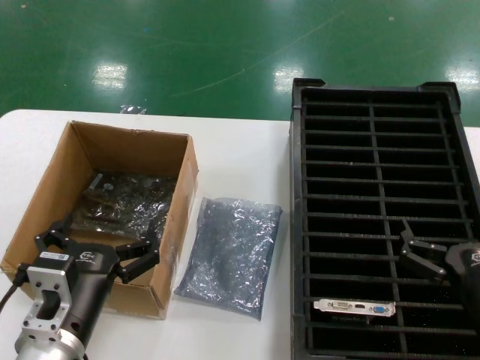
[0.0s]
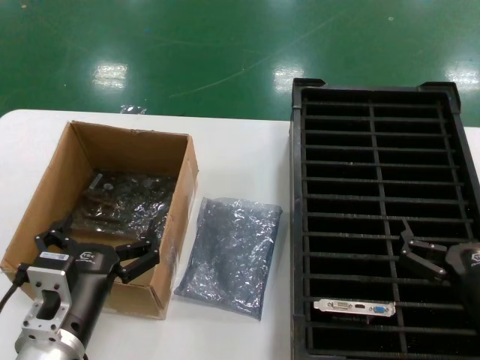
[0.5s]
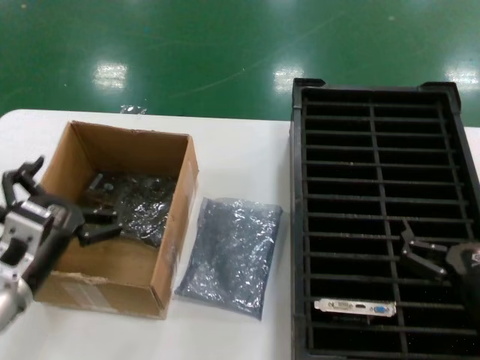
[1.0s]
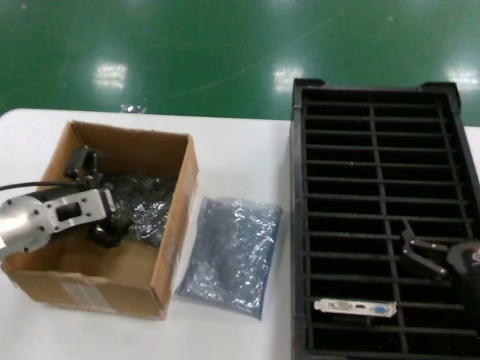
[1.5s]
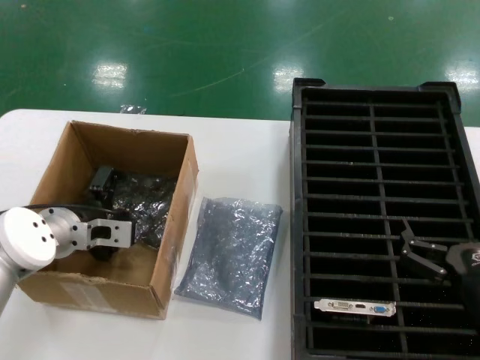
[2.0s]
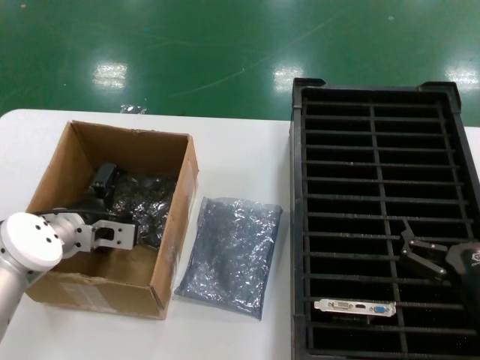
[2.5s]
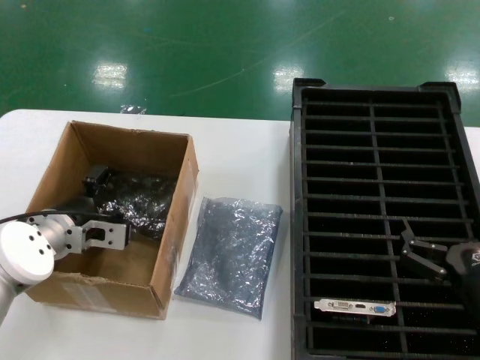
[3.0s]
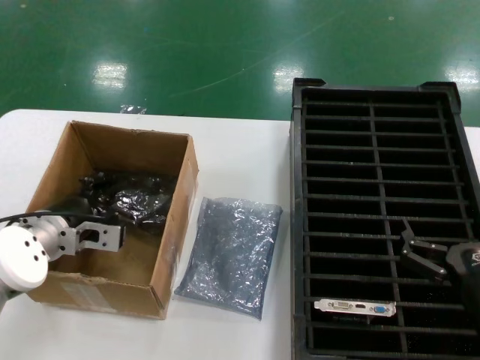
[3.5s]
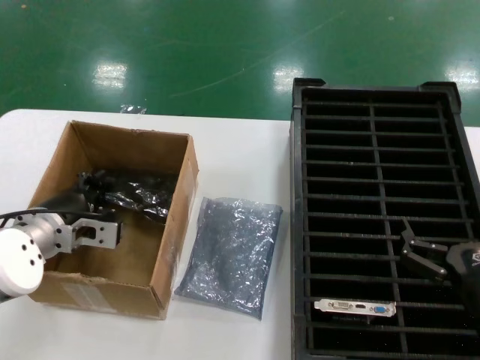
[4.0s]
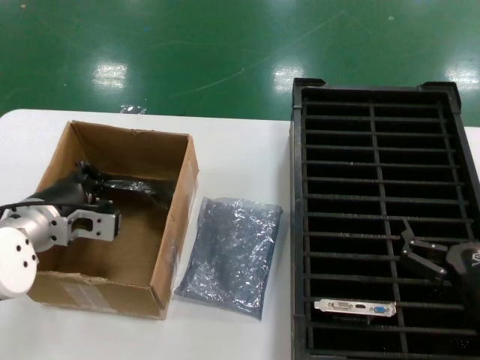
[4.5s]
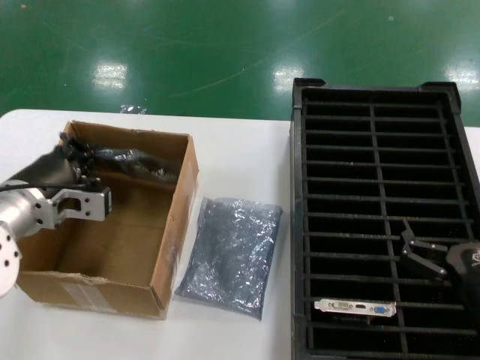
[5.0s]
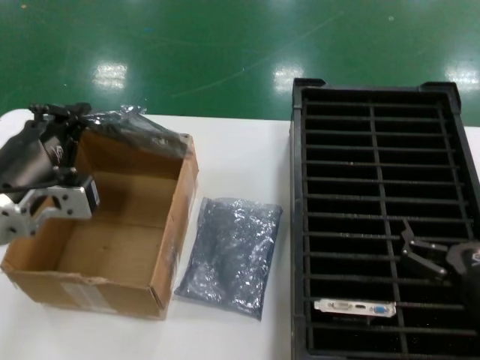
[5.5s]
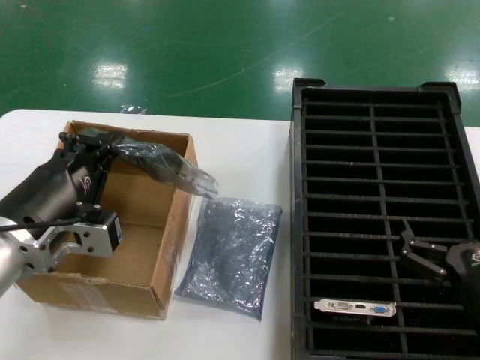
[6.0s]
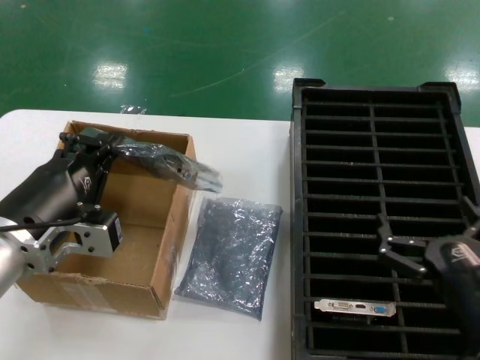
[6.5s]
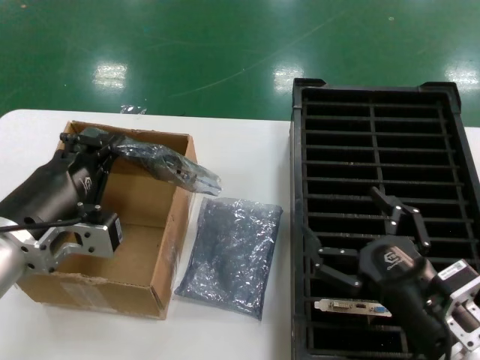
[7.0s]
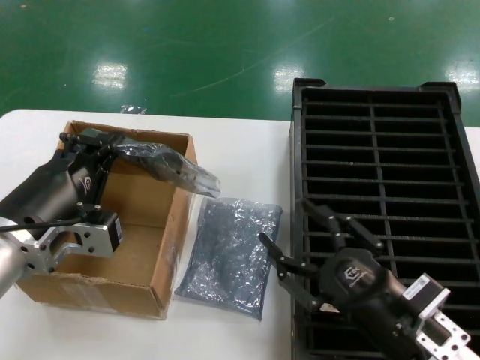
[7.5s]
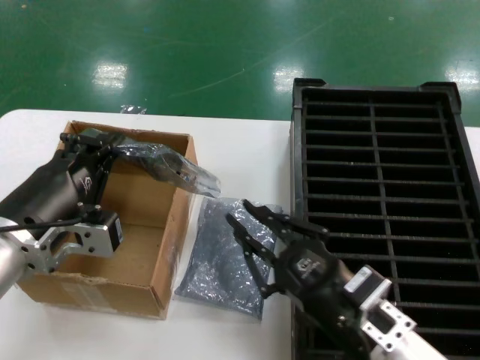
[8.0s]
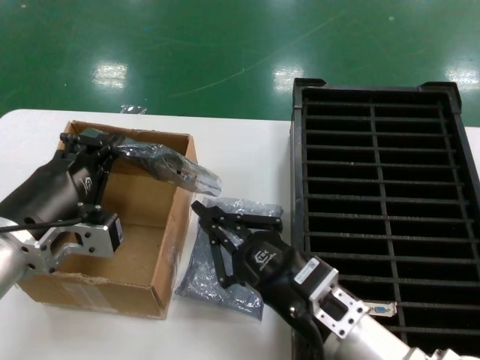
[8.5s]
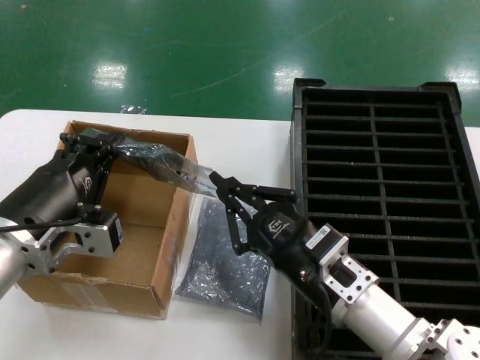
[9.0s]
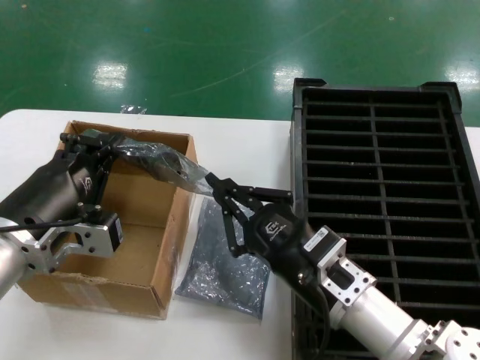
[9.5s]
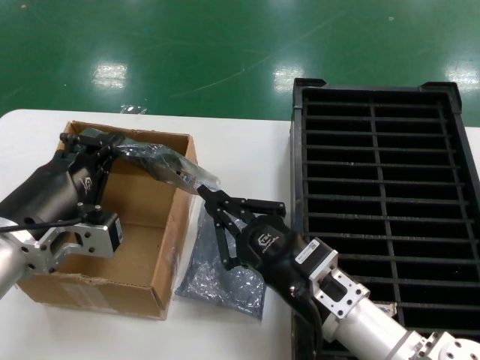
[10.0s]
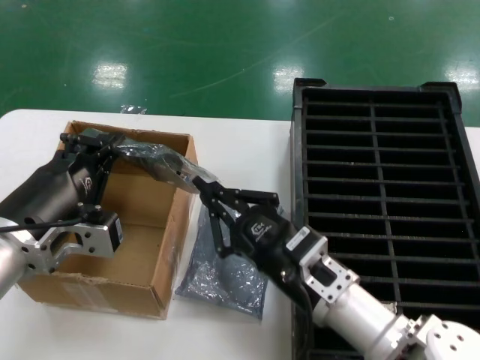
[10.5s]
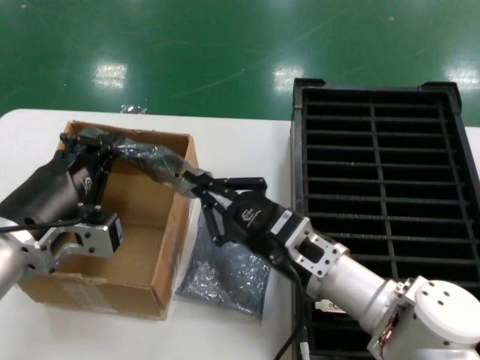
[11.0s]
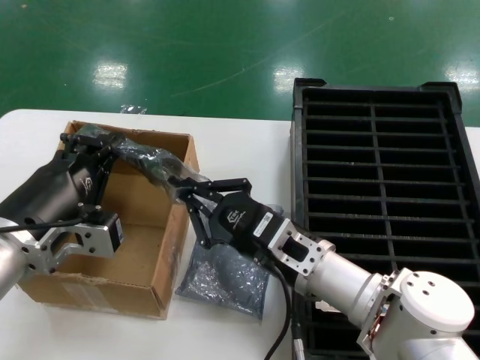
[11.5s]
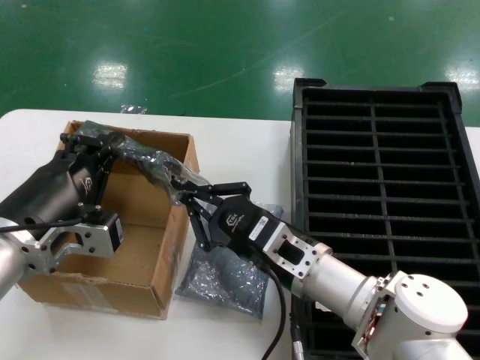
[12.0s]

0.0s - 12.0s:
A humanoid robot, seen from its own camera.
Task of the whole recording: take out graphics card from box remove packaging put into black container.
Step, 0.0s - 4.0s: Grasp the bag.
Step, 4.5s - 5.5s: Lift the bag.
0.0s - 2.0s: The left hand is displaced forward and to the left by approximately 20 cm.
2.0s - 4.0s: The hands stay close to where they were, moving slightly.
4.0s - 6.0s: The left hand moves backward and upward, about 15 cm.
6.0s - 8.0s: The right hand shifts about 10 cm to the left.
8.0s - 10.0s: The right hand moves some 5 cm.
10.0s - 12.0s: The right hand is displaced forward by about 5 cm.

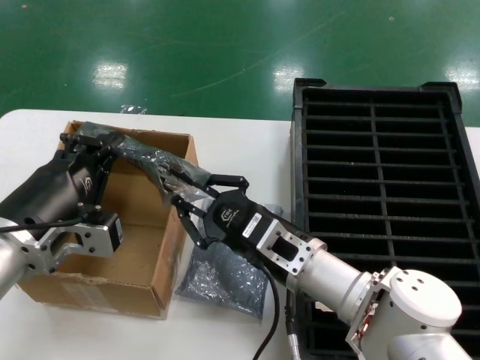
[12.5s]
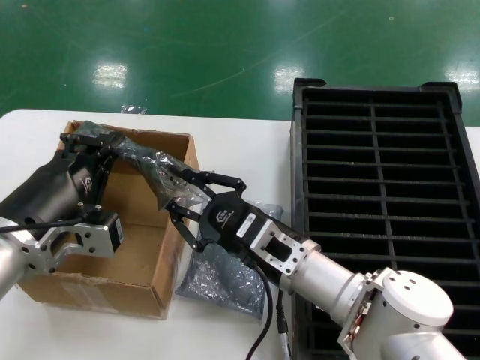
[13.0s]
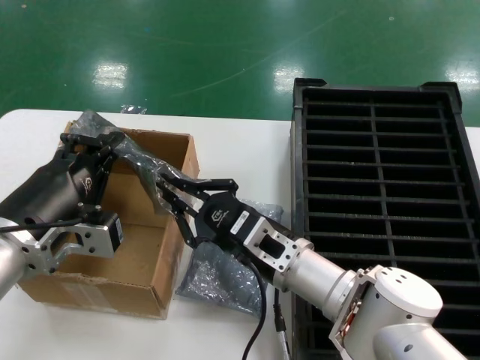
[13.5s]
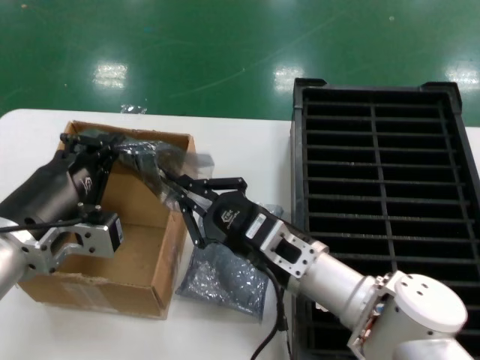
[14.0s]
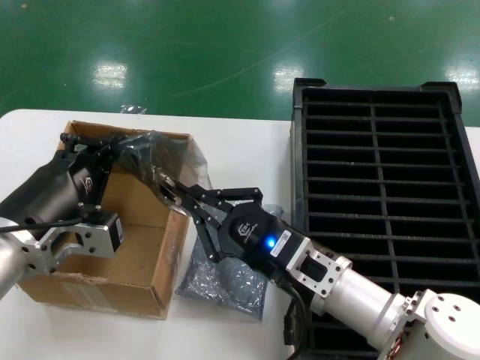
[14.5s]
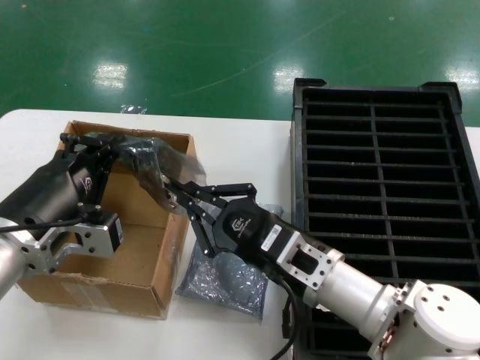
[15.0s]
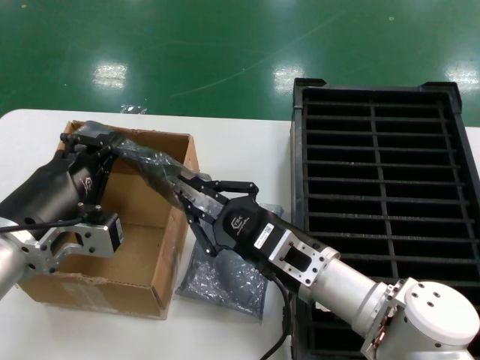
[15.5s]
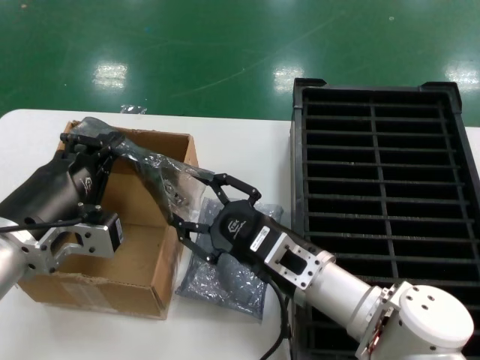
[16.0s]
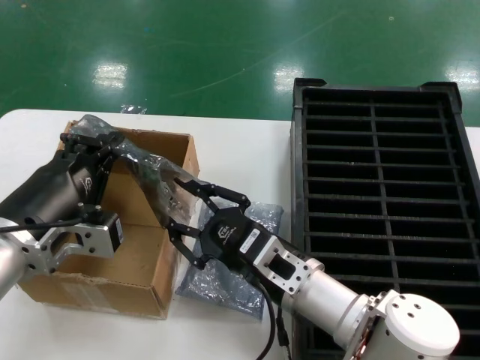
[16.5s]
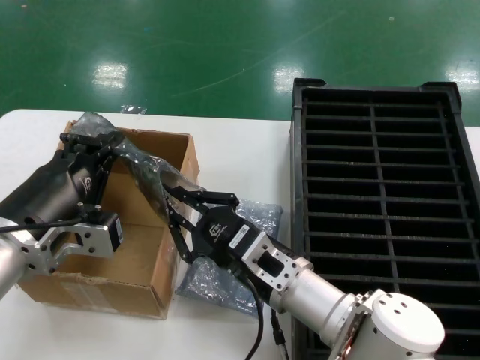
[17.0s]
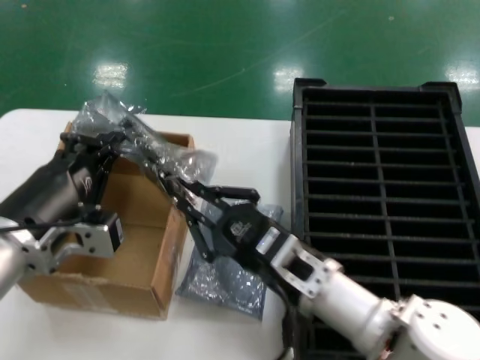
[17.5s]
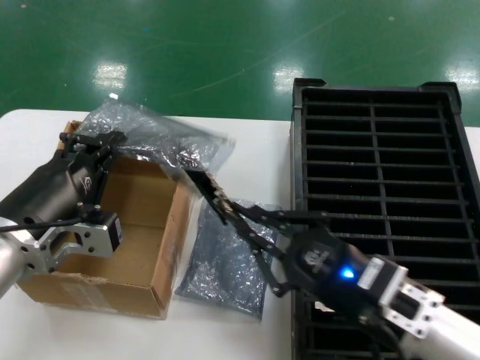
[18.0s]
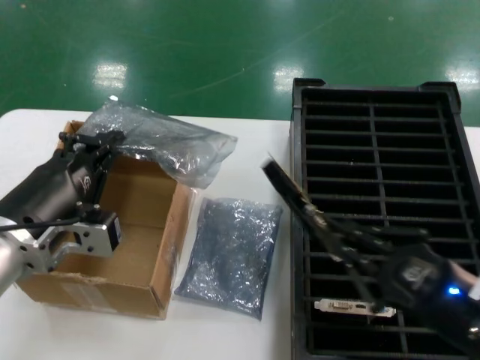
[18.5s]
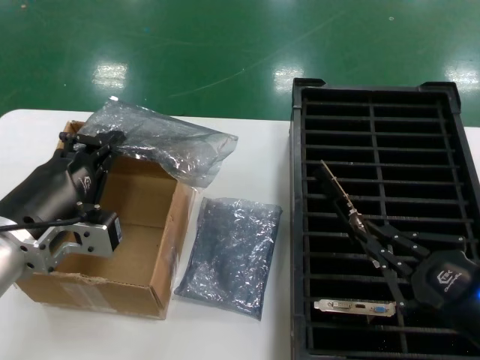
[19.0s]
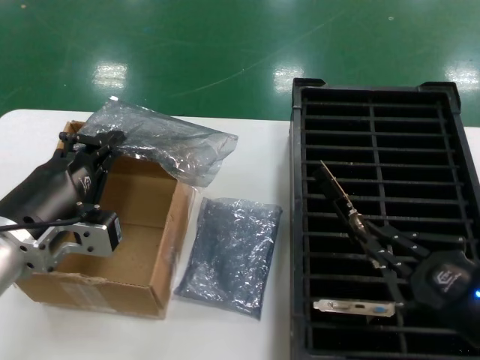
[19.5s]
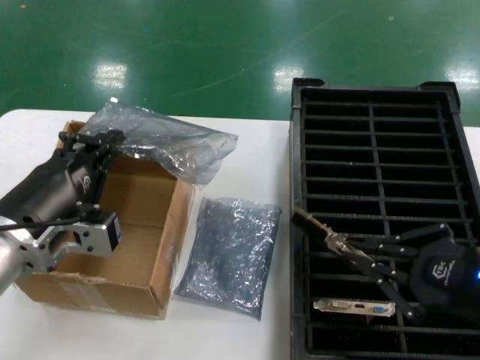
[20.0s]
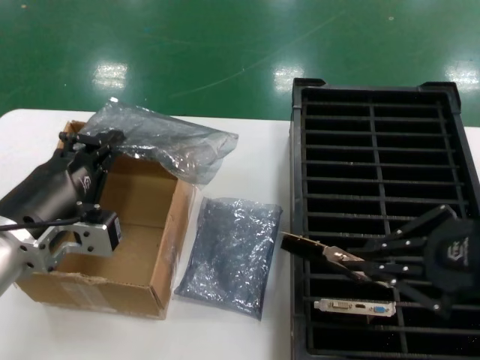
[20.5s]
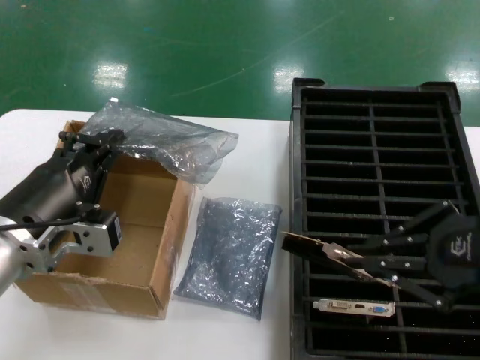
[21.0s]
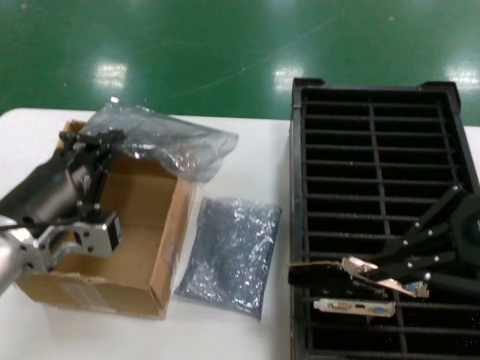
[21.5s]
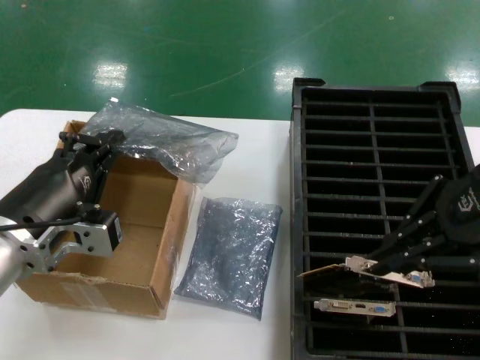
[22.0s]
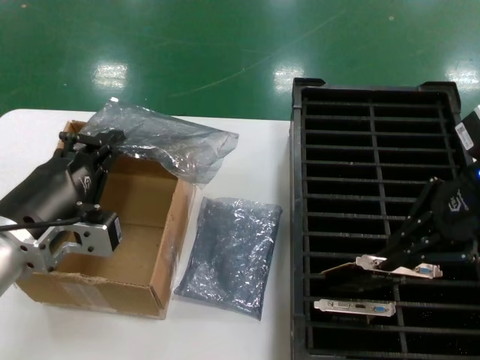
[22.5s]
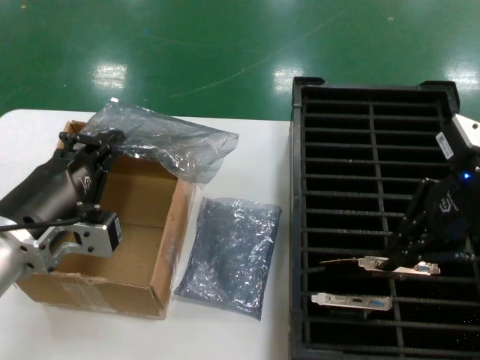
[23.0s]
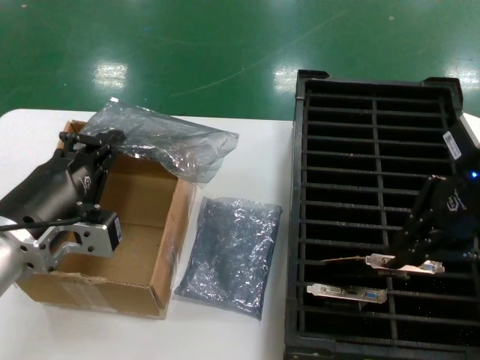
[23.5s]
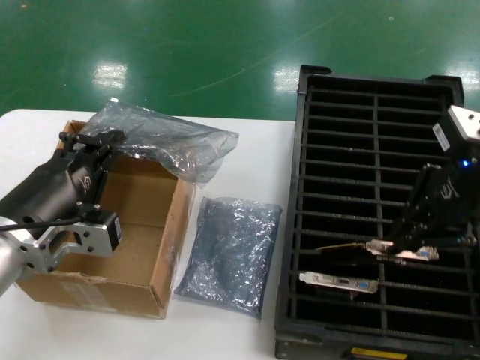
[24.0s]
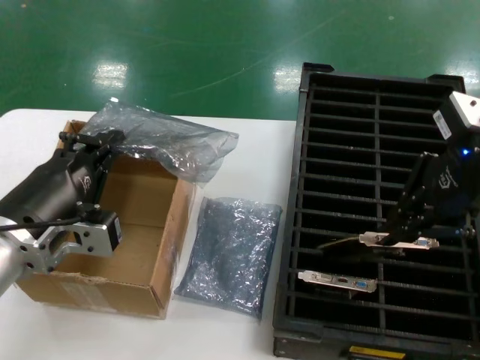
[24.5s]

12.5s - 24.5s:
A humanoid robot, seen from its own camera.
Task of the whole recording: take out graphics card from box remove packaging put into black container.
Step, 12.5s - 18.0s: Take out the hard disk of the bag.
12.5s - 16.5s: The hands stay close to where they were, moving slightly.
16.5s - 18.5s: The right hand travels to the right and backward by some 25 cm.
18.5s - 20.5s: The right hand heads upward, covering some 15 cm.
20.5s - 22.5s: The right hand is displaced forward and upward by roughly 15 cm.
22.5s - 24.5s: The hands move only a little.

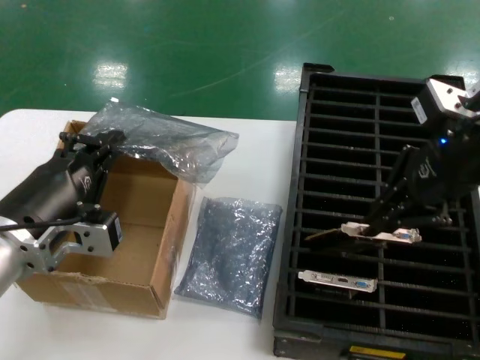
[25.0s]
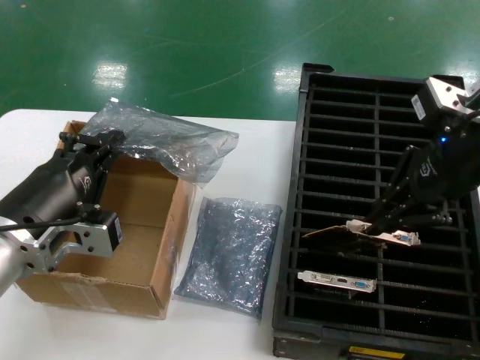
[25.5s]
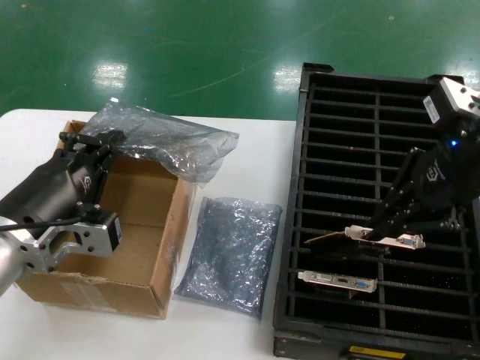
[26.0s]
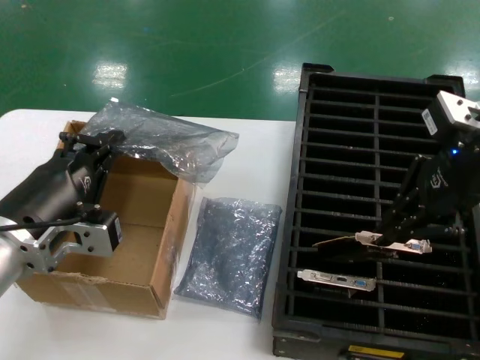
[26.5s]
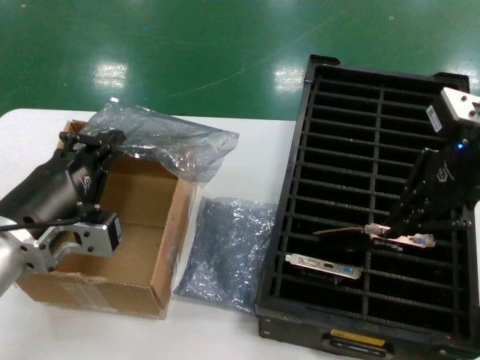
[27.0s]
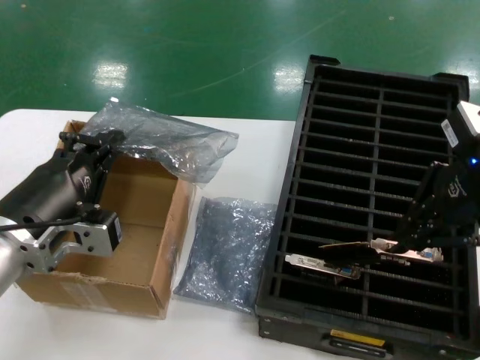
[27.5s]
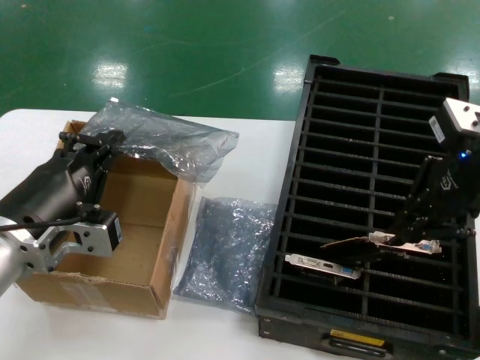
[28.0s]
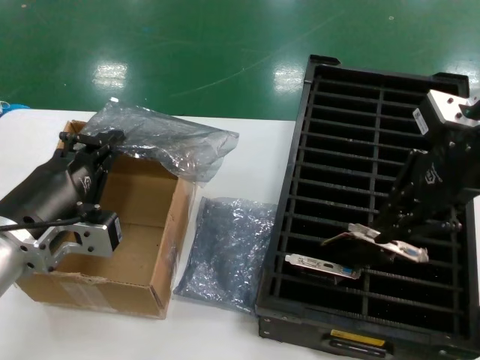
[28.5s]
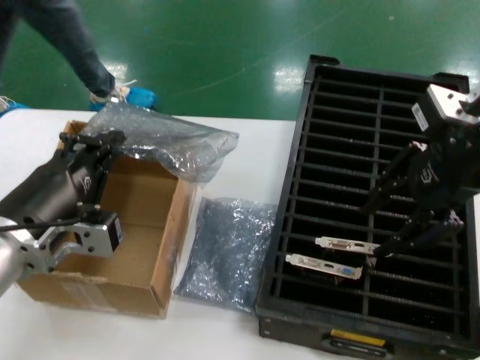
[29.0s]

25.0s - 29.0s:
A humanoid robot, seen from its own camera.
Task of the whole recording: take out graphics card from box remove packaging put into black container.
Step, 25.0s - 28.5s: Place the hard disk in the hard disk enclosure.
25.0s - 27.0s: Neither hand changes place.
27.0s - 29.0s: The hands move only a little.
